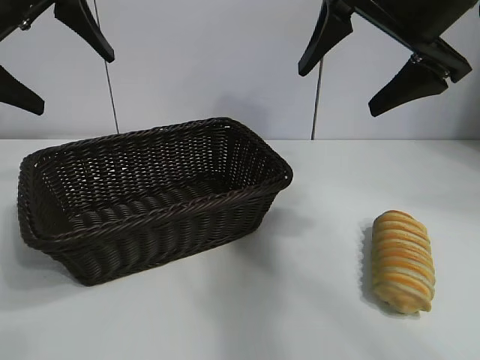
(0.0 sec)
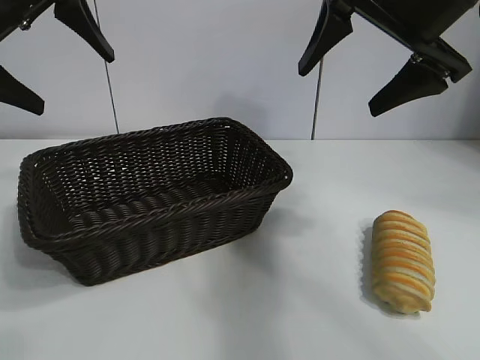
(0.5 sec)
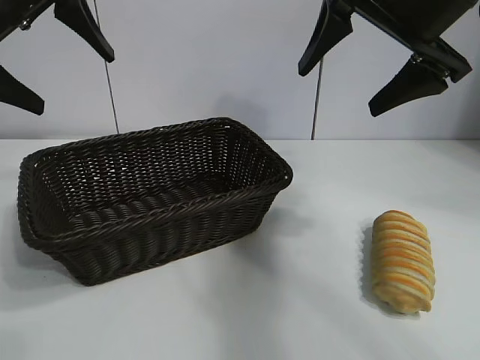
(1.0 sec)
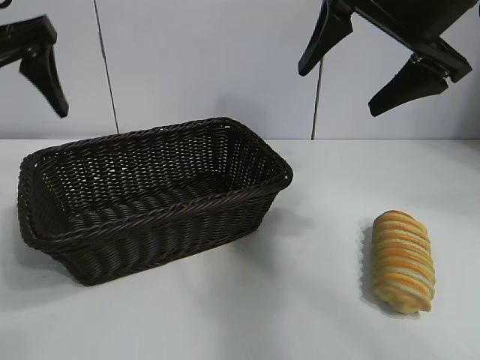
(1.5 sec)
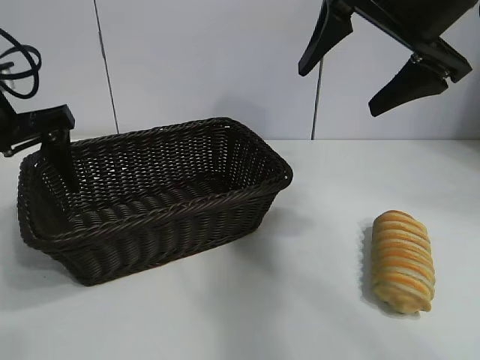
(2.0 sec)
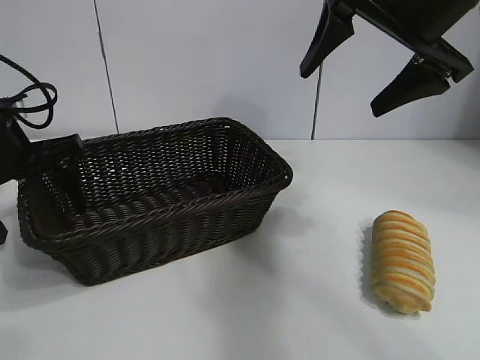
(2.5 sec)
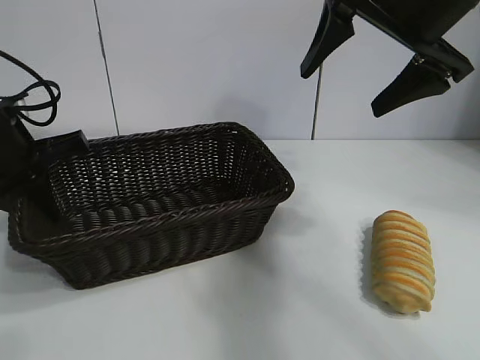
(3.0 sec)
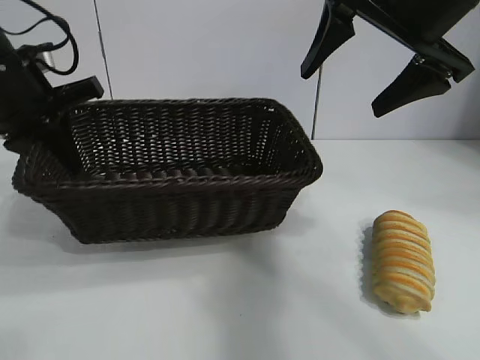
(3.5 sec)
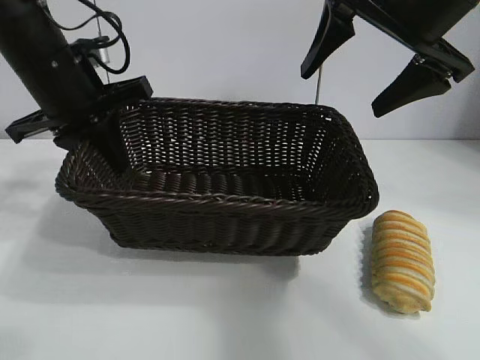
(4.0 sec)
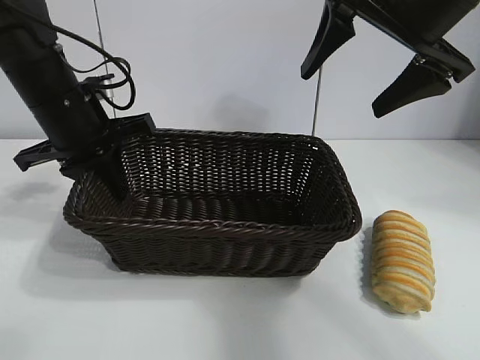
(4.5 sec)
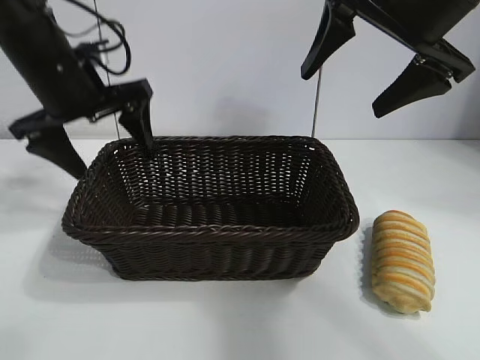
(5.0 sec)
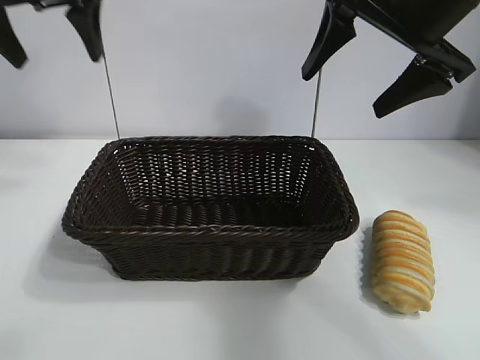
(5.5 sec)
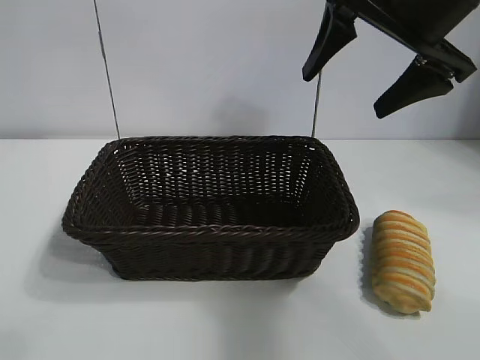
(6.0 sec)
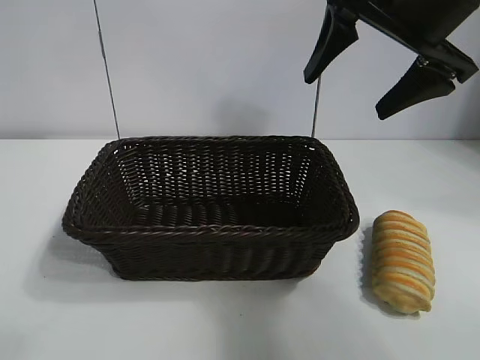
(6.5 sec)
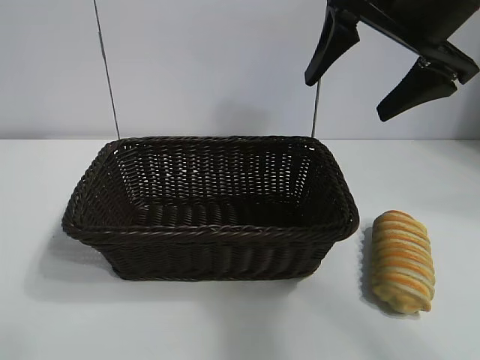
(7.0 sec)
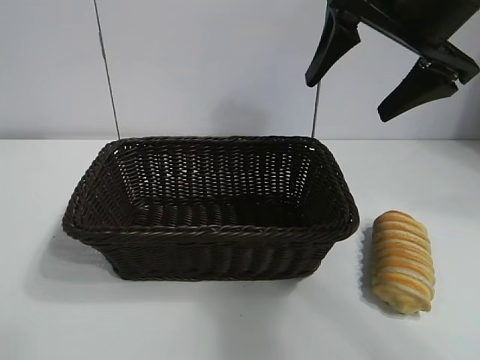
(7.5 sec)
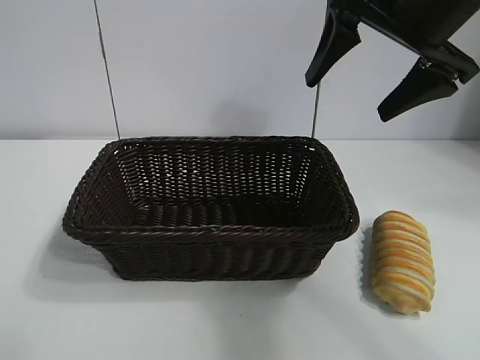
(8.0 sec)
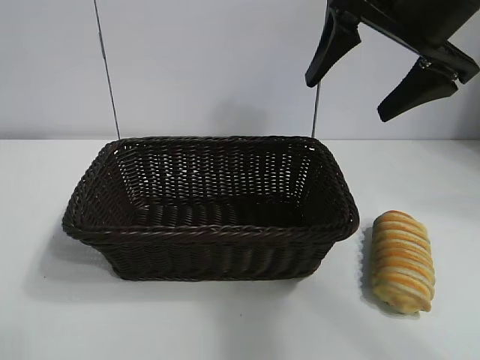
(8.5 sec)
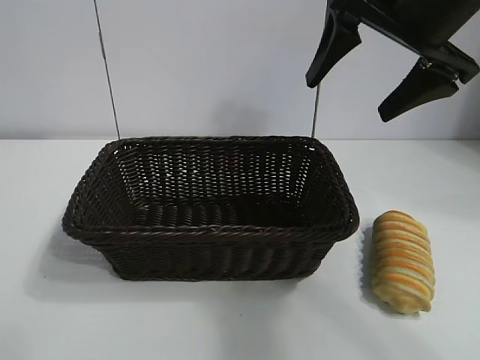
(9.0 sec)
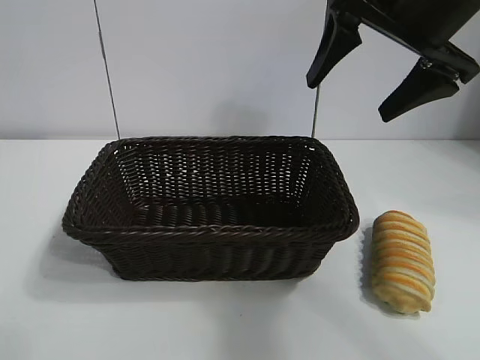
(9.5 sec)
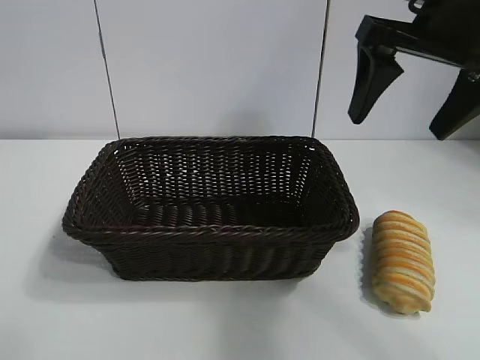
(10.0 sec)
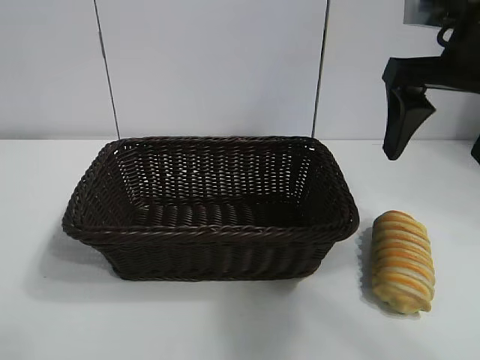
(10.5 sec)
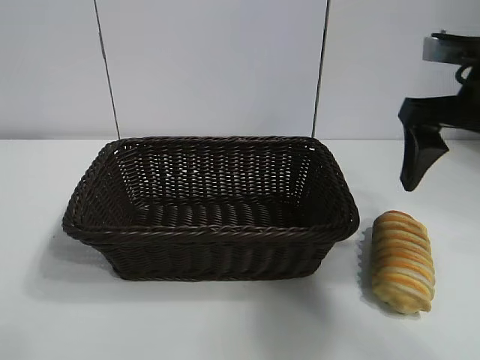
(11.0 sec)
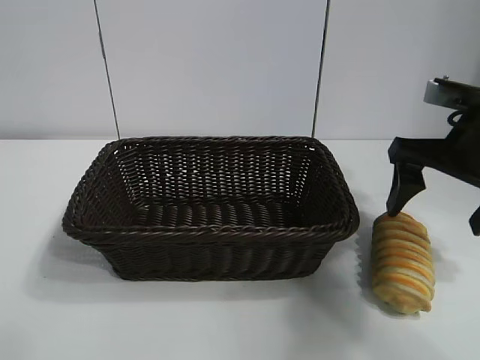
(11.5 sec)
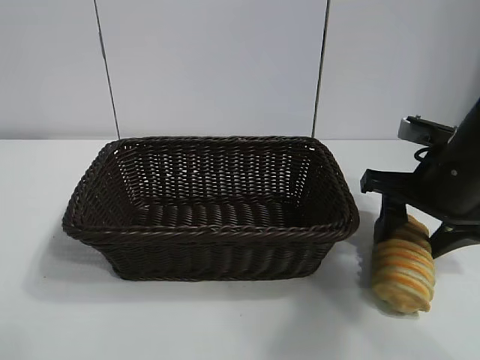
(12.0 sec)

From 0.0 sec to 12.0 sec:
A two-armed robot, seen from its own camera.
Task of the whole recording: pick up the long bread and put it into the basket.
Step, from 1.5 sec to 2.5 sec: Grasp the basket with the left gripper.
Step, from 3.5 sec to 4.5 sec: Place the basket in the center of the table with the left gripper.

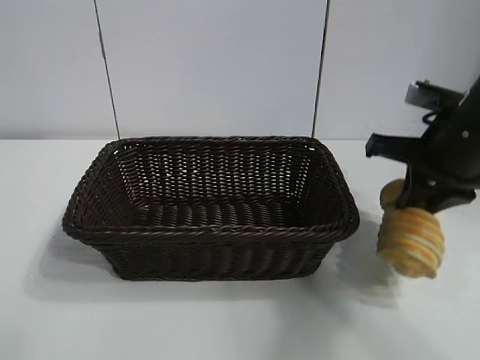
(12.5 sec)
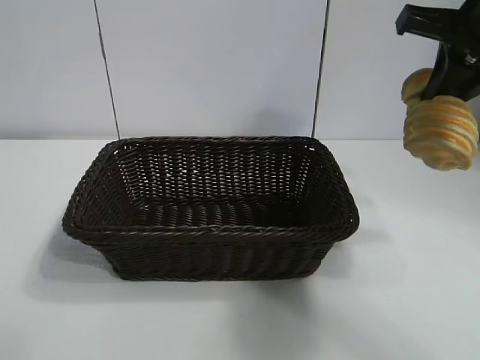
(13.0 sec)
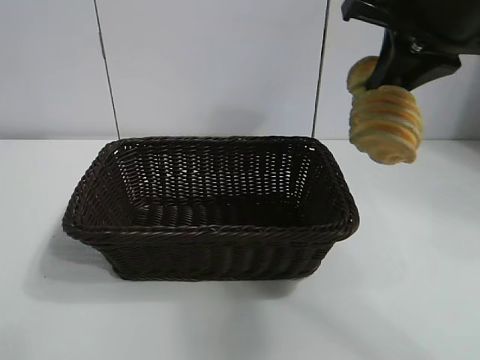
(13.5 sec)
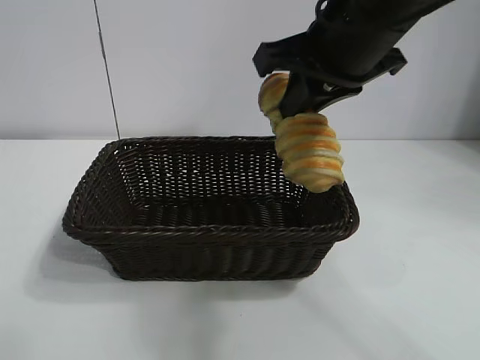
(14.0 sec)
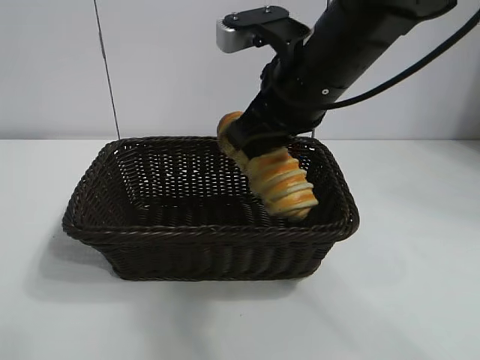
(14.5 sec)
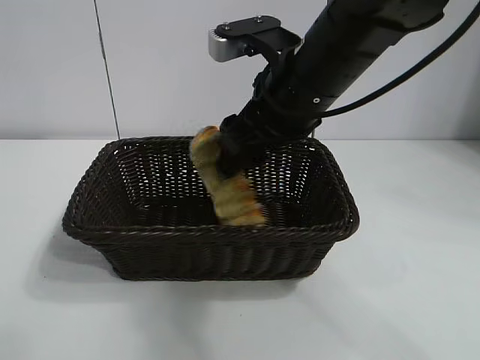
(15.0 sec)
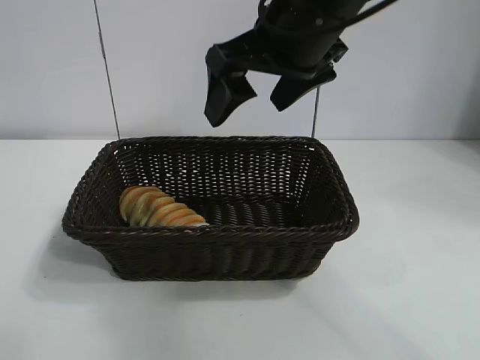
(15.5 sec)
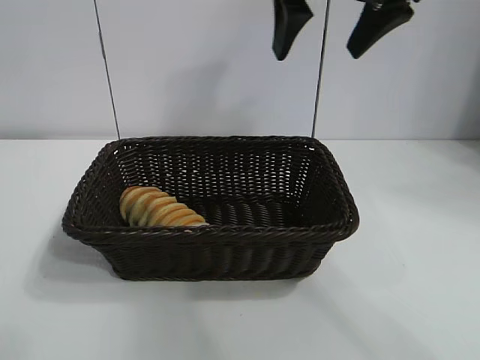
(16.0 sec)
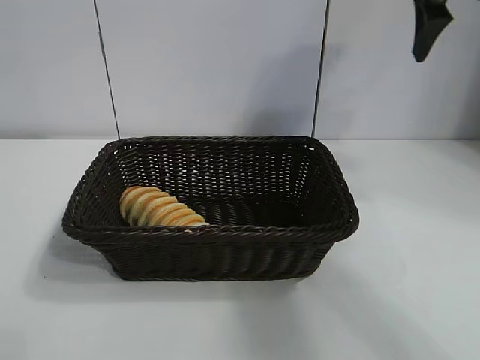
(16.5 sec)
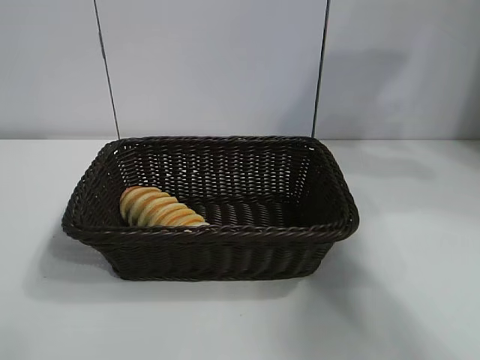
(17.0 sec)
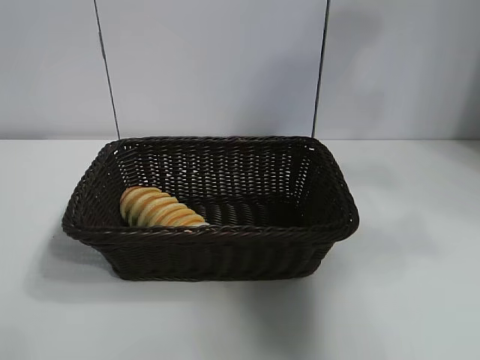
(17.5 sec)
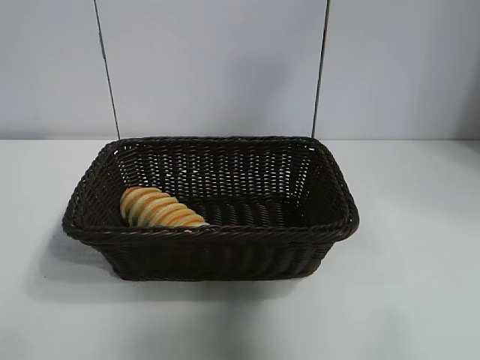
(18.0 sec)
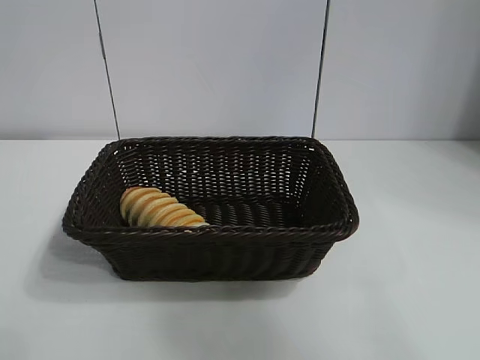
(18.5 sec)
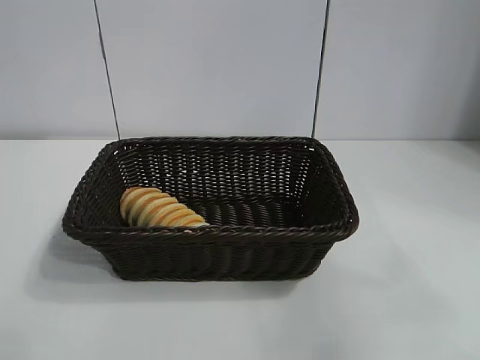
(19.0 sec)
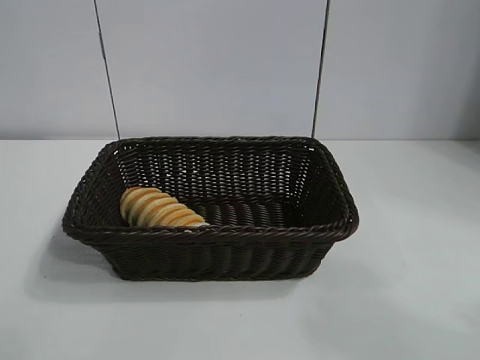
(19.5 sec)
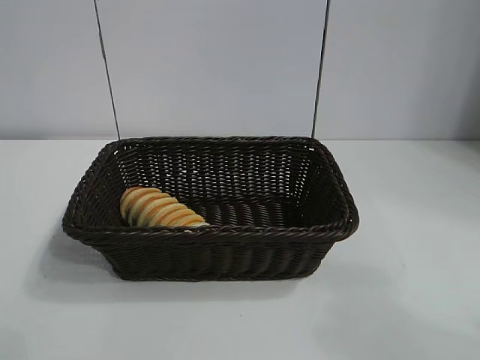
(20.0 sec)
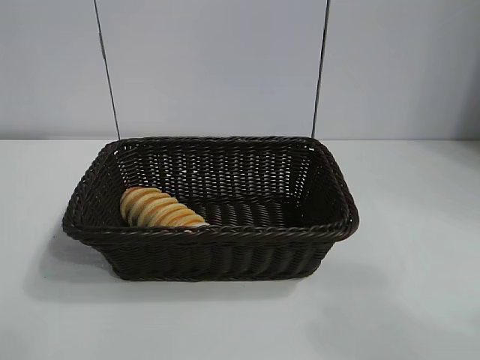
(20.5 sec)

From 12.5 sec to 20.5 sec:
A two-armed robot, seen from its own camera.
Task of the whole recording: pick up the long bread and put it into the basket.
Step, from 12.5 sec to 15.0 sec: Place the long bread in the basket with right gripper.

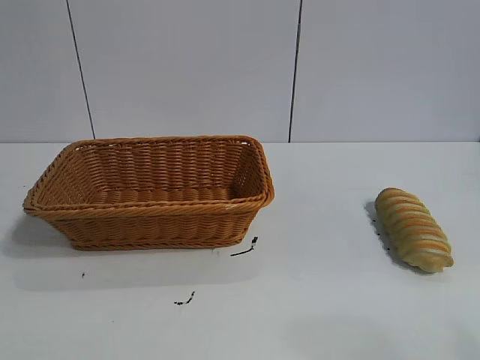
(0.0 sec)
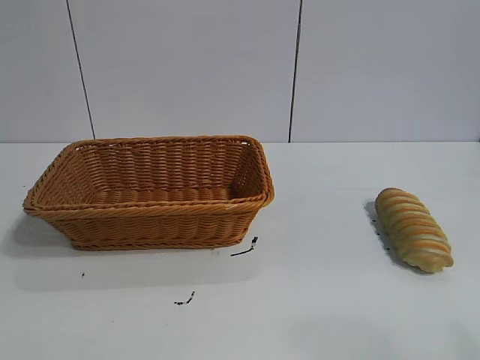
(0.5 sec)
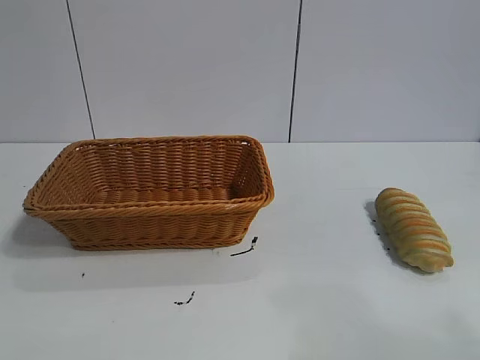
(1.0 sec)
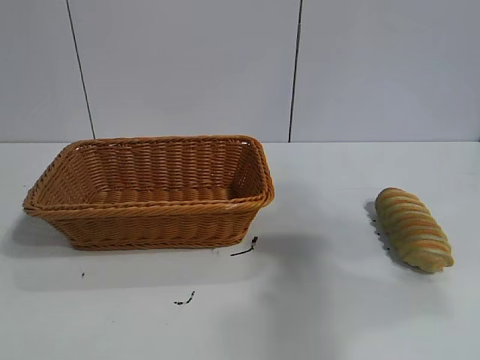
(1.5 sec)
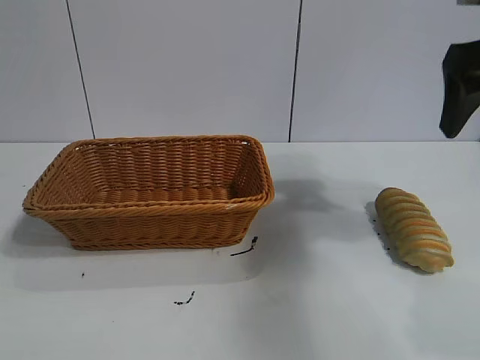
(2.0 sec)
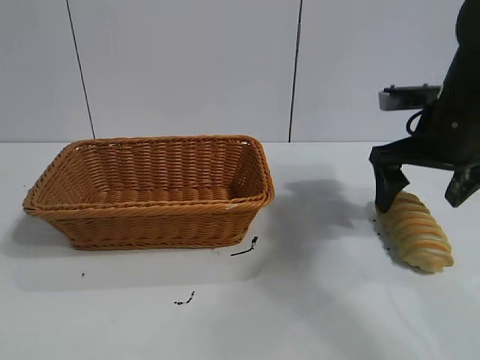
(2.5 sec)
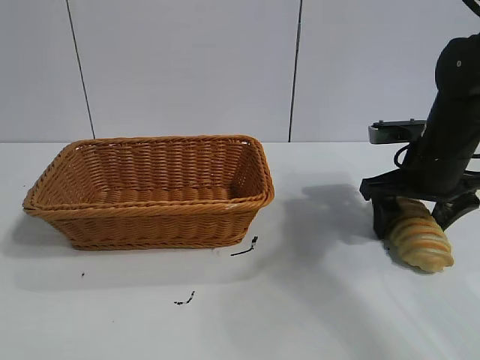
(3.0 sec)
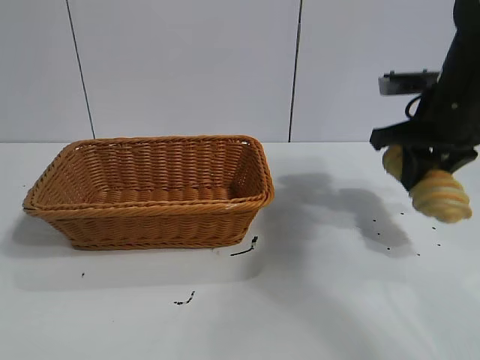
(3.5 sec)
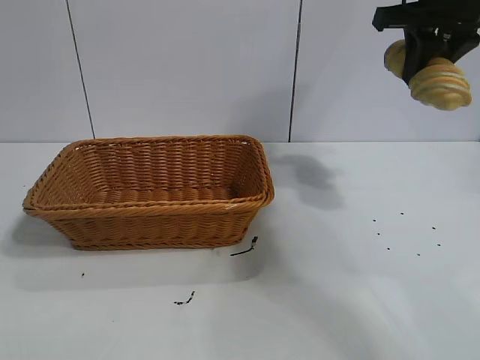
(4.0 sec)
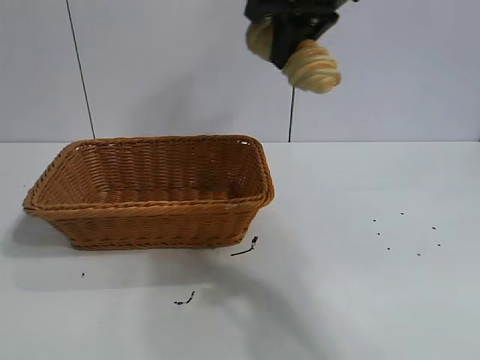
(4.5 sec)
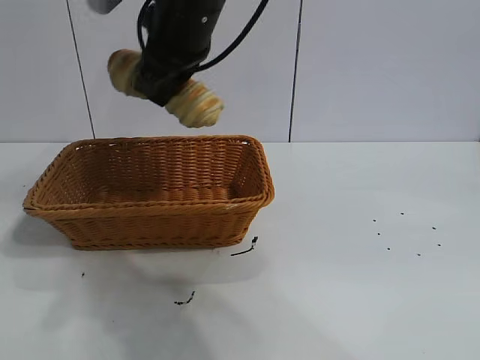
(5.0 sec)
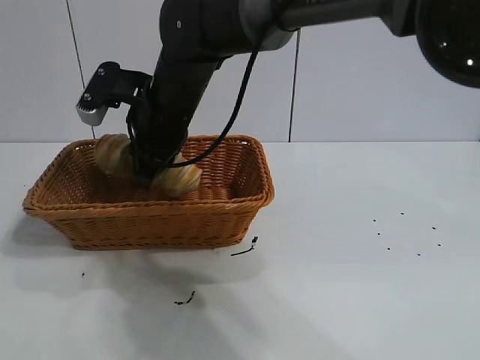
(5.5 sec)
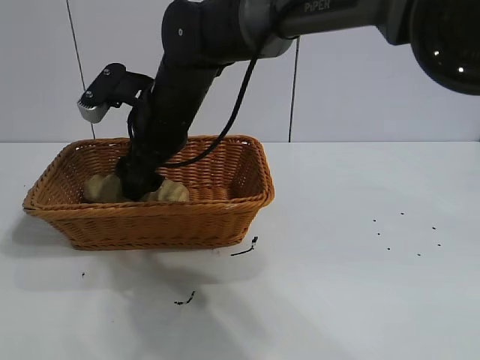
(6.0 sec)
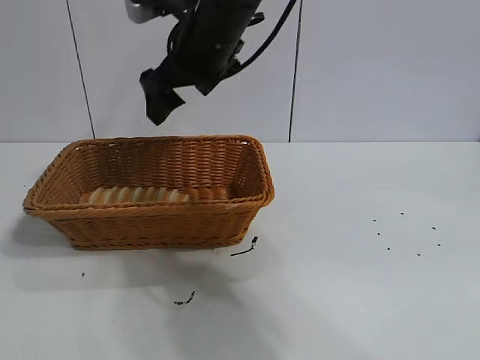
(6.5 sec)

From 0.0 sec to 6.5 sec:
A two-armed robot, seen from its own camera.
Task of the whole recording: pick up the long bread and put it into the basket.
Step, from 2.0 sec to 3.0 sec: Grasp the long bread with right gripper.
Step, from 3.5 sec to 6.0 sec: Place the long bread in the basket with right gripper.
